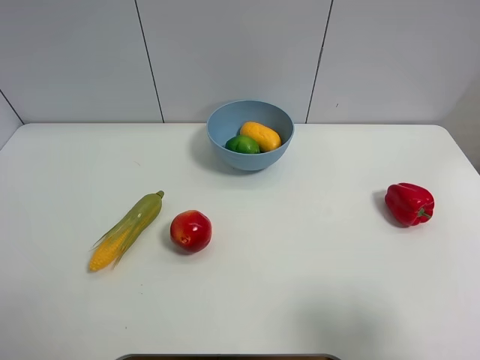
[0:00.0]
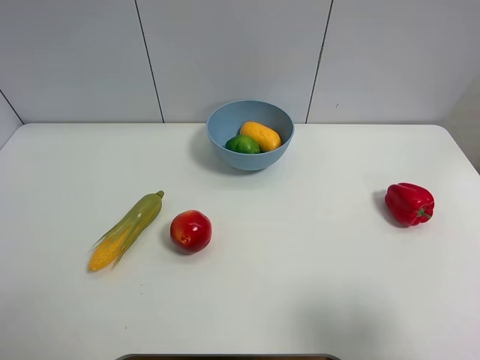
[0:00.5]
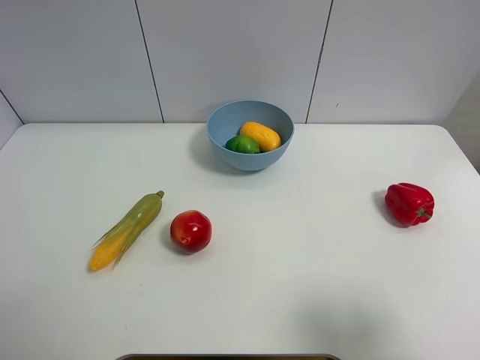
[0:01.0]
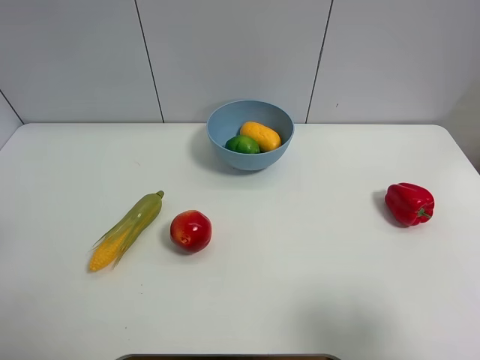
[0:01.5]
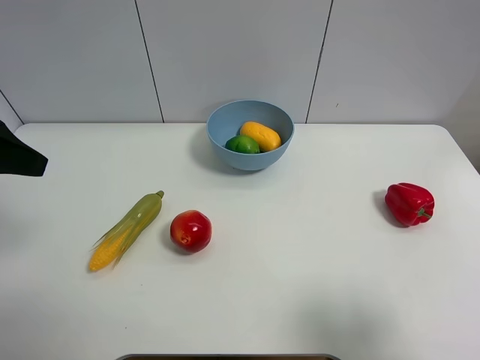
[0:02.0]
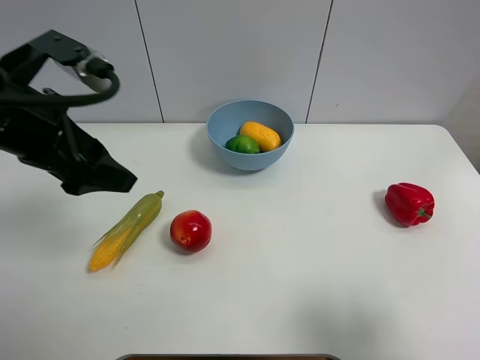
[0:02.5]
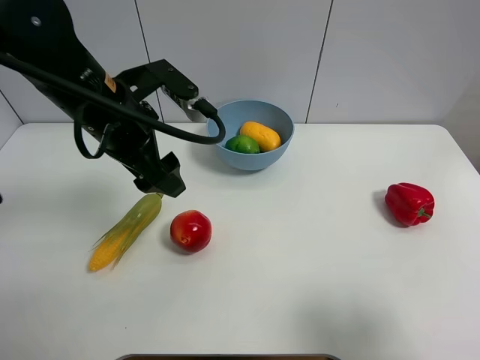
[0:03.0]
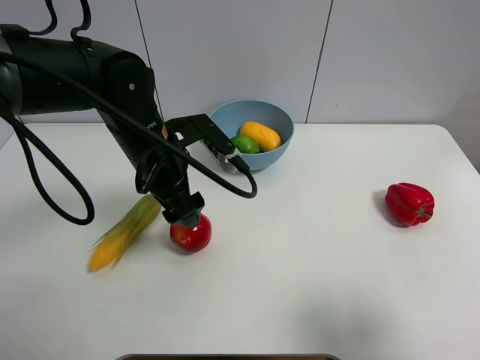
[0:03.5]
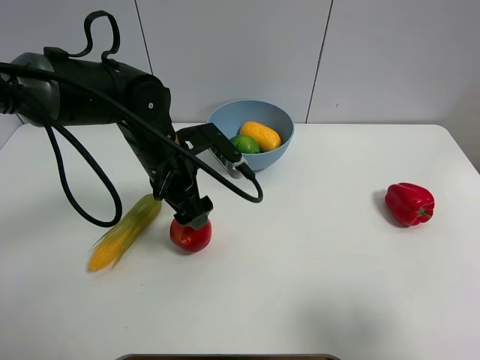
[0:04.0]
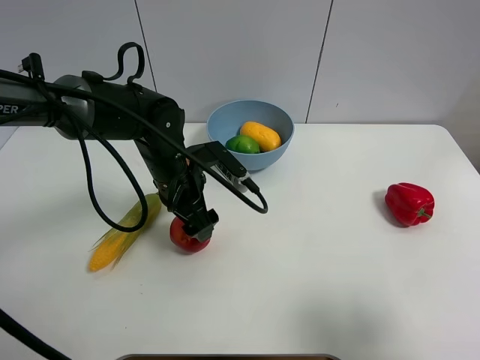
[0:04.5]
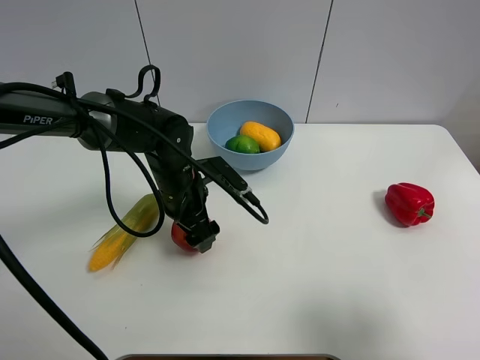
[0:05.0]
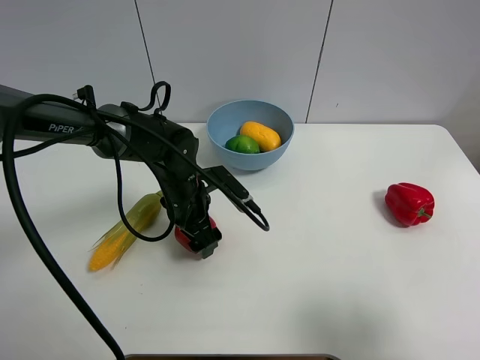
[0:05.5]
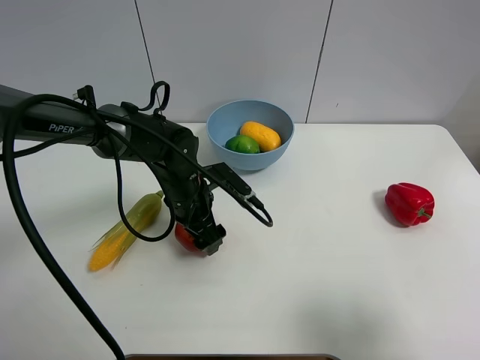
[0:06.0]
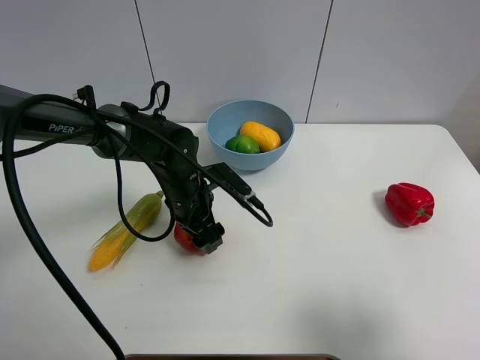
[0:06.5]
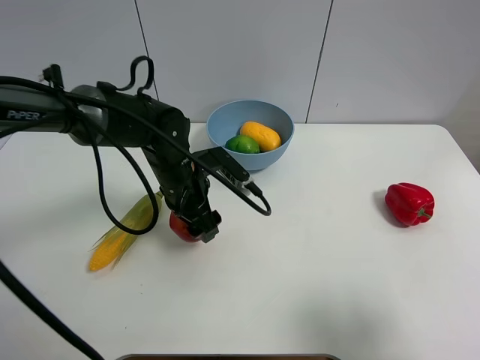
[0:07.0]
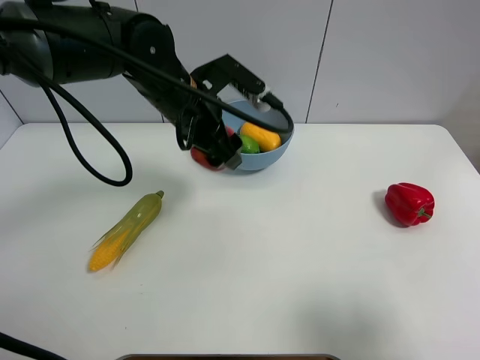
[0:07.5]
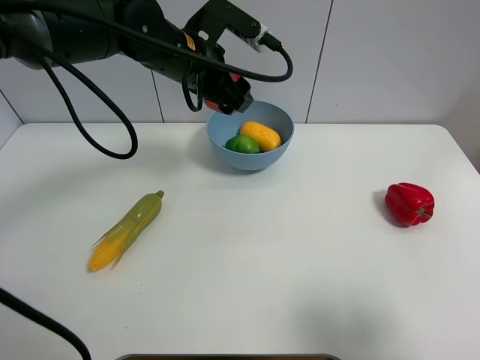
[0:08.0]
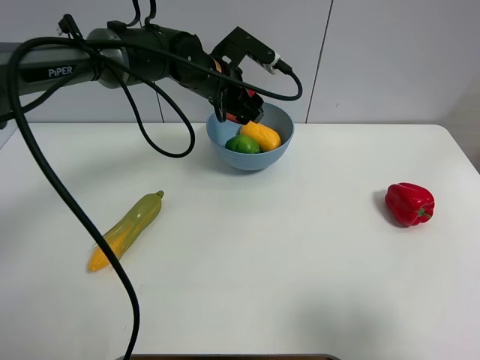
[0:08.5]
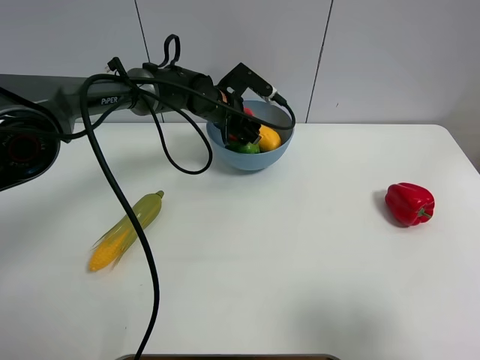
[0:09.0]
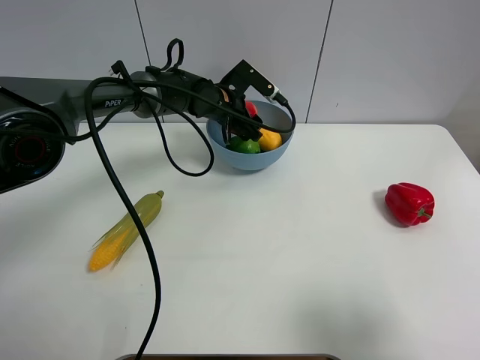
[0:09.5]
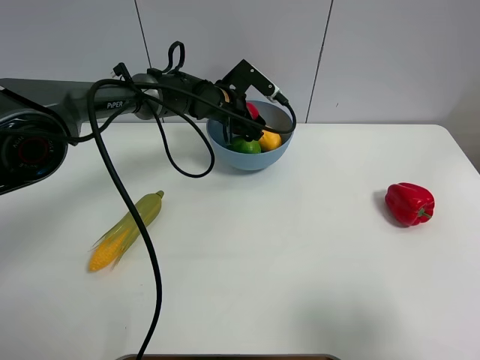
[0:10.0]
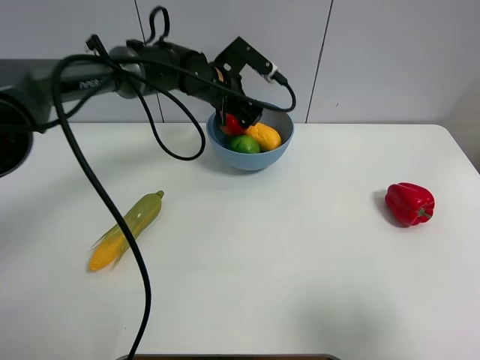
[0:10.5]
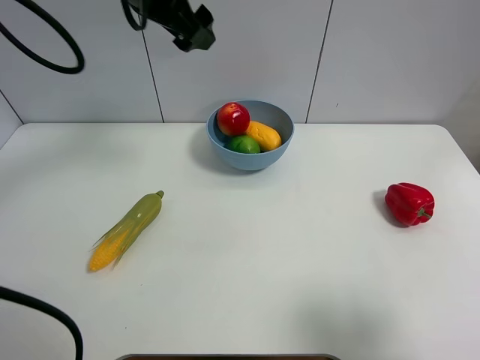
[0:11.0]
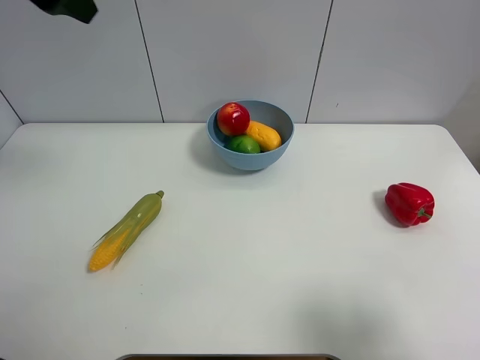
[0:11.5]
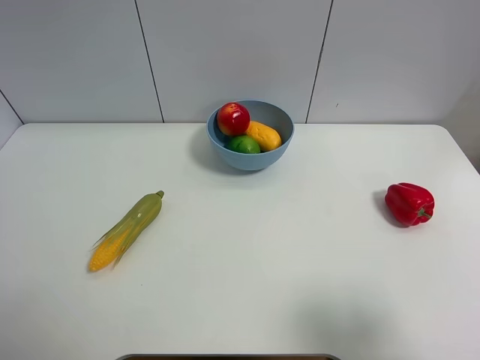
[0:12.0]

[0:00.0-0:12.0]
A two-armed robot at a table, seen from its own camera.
Task of the whole recording: Put the three fruits on the table into a bowl.
Step, 0:00.0 to 0:06.5: Grasp the pomegranate with left gripper.
Step, 0:07.0 to 0:10.5: Place the pomegranate in the blue bowl with left gripper.
0:00.0 to 0:02.0: The left gripper heads forward and upward, covering roughly 20 cm.
0:02.0 to 0:04.0: The left gripper goes about 30 cm to the right, downward and forward.
0:04.0 to 0:06.0: The left gripper travels downward by some 10 cm.
0:06.0 to 0:08.0: The left gripper travels upward and forward by approximately 20 cm, and closes.
0:08.0 to 0:10.0: The left gripper goes approximately 15 cm downward and forward, and opens.
0:10.0 to 0:12.0: The left gripper shifts some 50 cm upward, backward and to the left.
